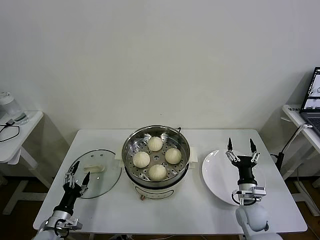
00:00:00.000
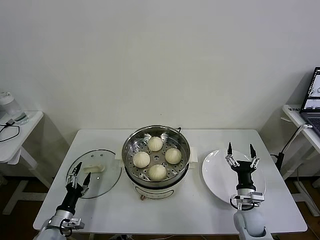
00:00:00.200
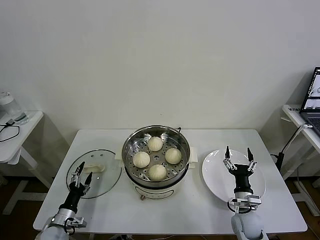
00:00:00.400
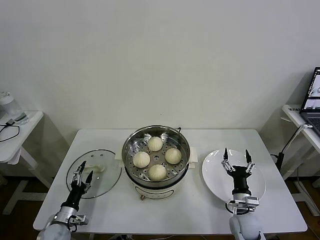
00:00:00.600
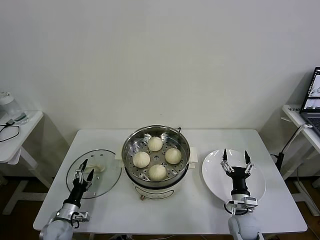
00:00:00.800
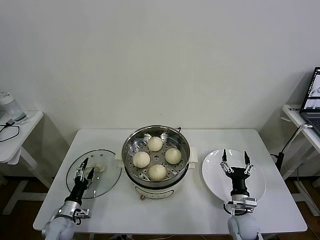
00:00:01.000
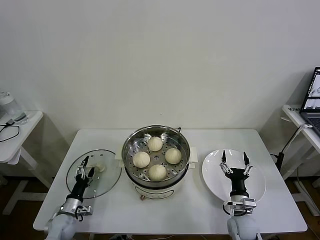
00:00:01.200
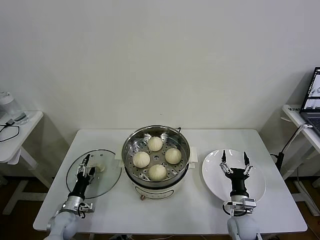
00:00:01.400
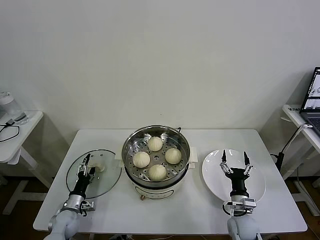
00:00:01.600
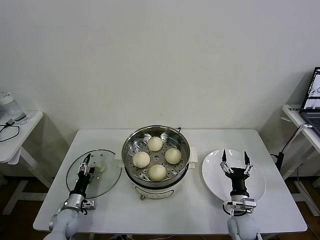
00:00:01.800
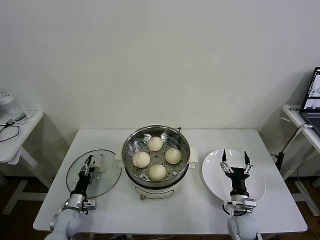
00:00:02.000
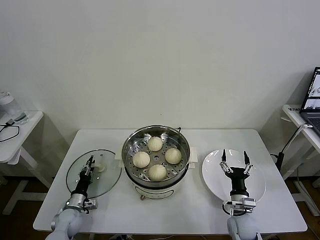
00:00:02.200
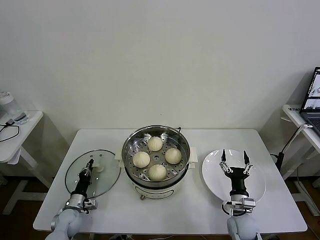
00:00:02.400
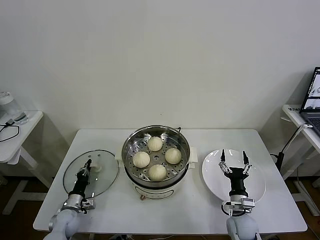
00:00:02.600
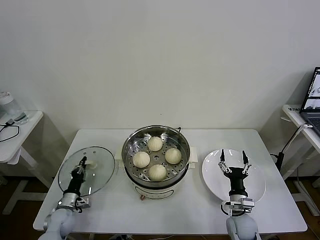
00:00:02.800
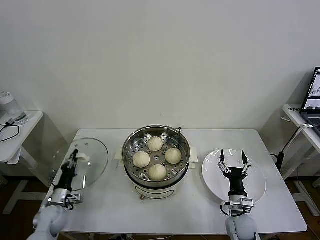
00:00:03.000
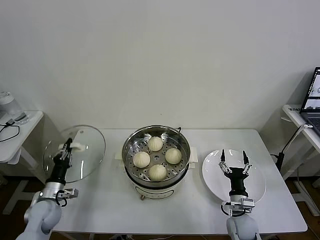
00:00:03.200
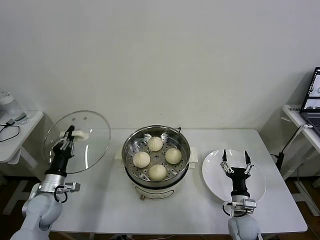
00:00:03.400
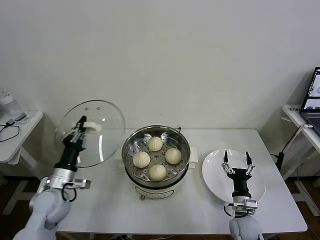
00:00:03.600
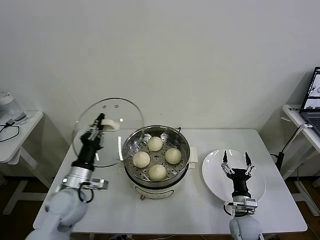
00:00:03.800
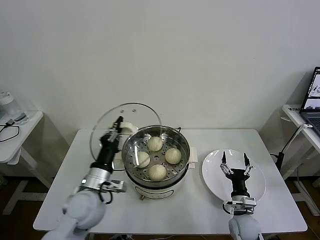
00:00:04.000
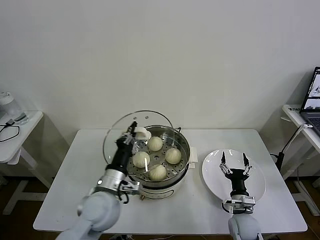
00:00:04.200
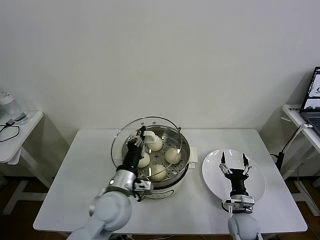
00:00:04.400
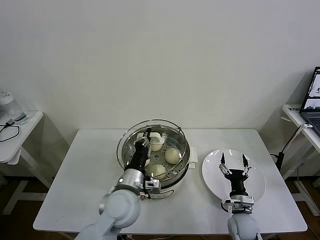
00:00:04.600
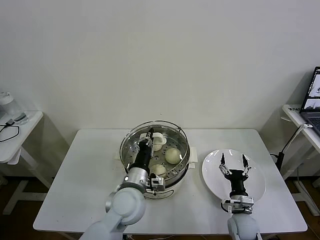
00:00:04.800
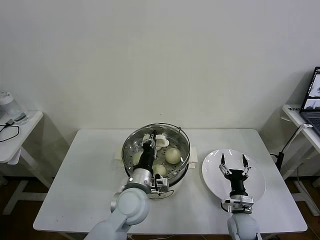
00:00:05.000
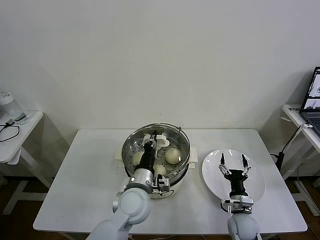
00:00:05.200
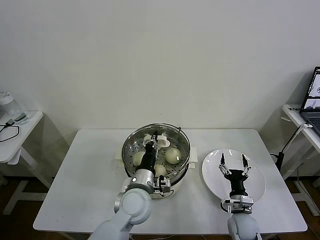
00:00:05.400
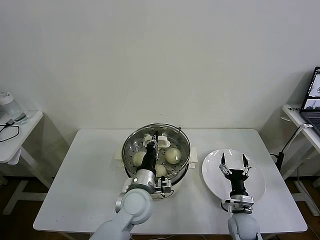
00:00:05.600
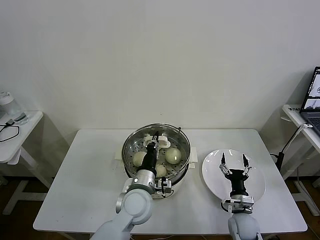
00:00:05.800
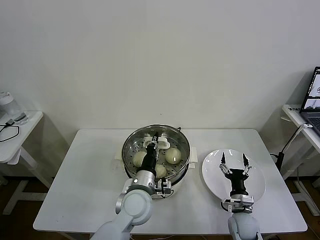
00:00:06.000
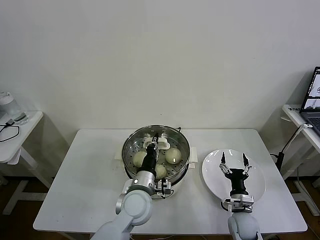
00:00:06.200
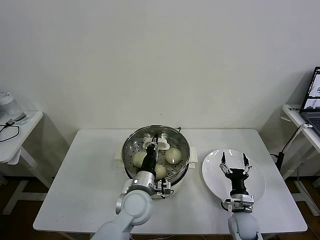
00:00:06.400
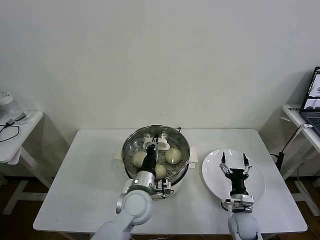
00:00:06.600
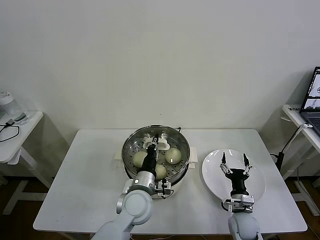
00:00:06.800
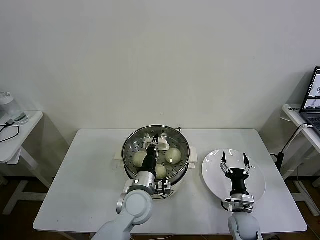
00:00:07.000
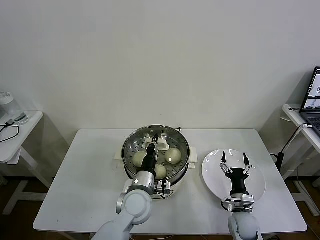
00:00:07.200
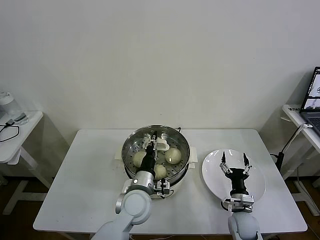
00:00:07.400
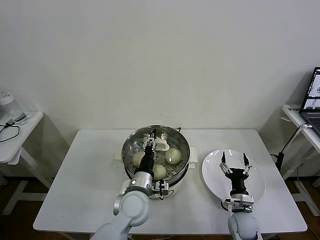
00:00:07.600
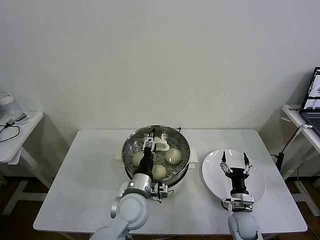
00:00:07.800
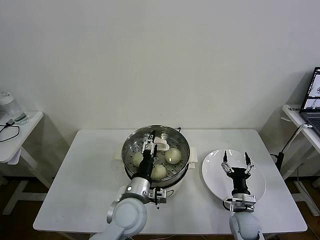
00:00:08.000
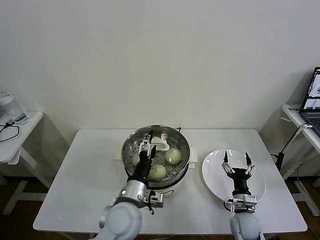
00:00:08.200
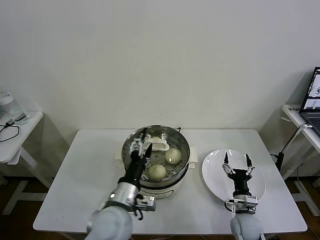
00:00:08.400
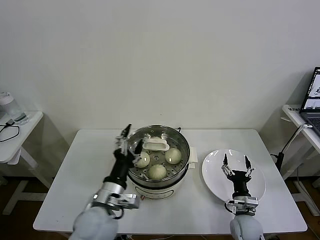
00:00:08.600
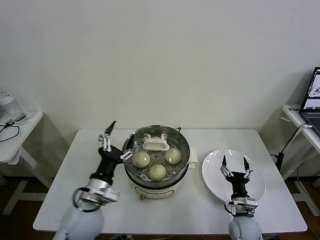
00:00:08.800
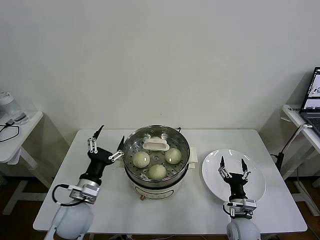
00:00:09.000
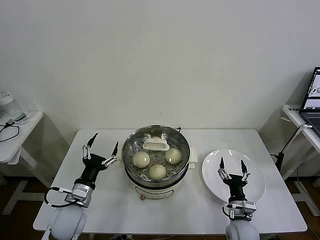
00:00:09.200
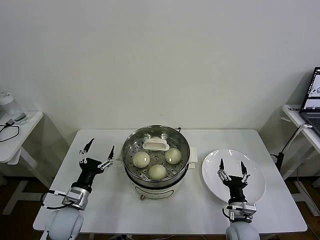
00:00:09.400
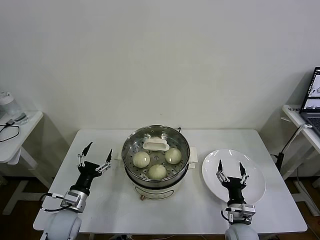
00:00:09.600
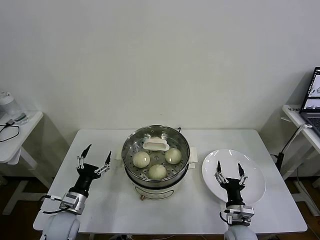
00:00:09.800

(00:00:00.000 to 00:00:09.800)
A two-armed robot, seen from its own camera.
Task of the whole recording: take steamed baozi put them in steamer then cover it.
Step, 00:00:00.000 - 00:00:02.400: Grasp the pot lid with left gripper.
Step, 00:00:02.800 - 00:00:07.600: Place the pot lid on the steamer with left gripper.
00:00:00.000 - 00:00:01.400: The right gripper moves some 5 cm, while the left gripper travels forward and downward by some 10 cm.
00:00:01.400 - 00:00:02.800: The left gripper closes up.
00:00:02.800 - 00:00:04.200: The left gripper shifts roughly 30 cm upward and to the right.
00:00:04.200 - 00:00:05.600: The left gripper goes some 10 cm to the right.
00:00:05.600 - 00:00:07.000: The grippers move only a little.
00:00:07.000 - 00:00:08.400: The left gripper is displaced backward and upward by approximately 10 cm, and opens up.
00:00:08.400 - 00:00:09.800: The right gripper ends up roughly 5 cm from where it was. The left gripper travels to the left and downward by some 25 cm.
